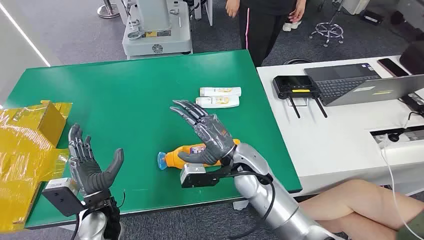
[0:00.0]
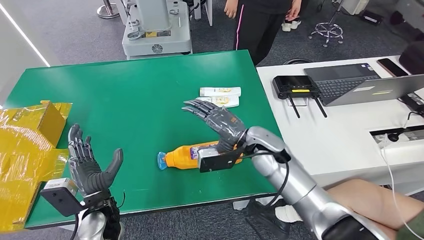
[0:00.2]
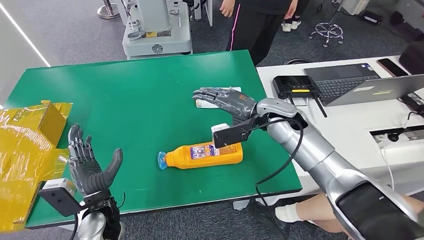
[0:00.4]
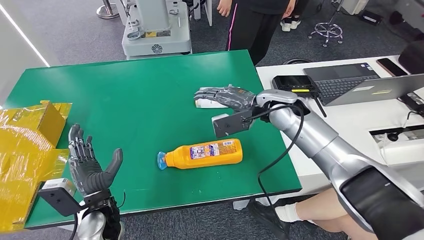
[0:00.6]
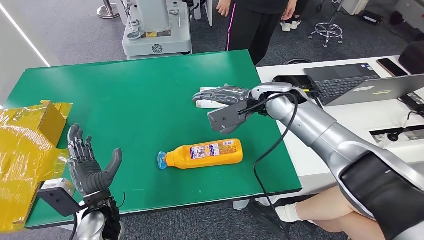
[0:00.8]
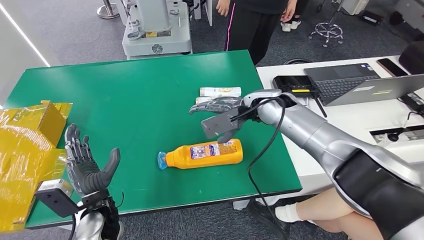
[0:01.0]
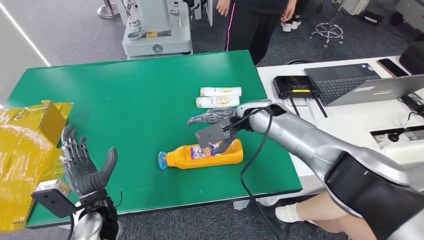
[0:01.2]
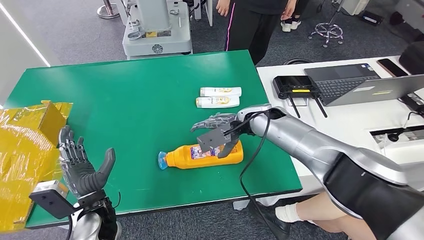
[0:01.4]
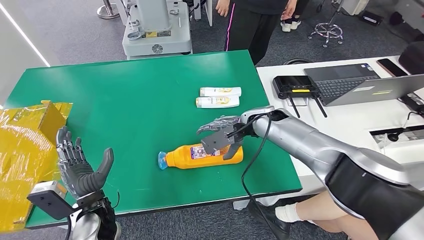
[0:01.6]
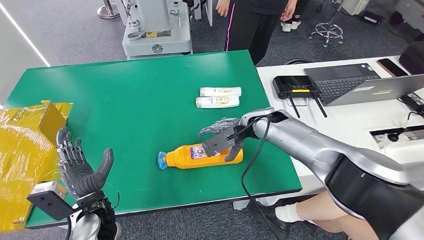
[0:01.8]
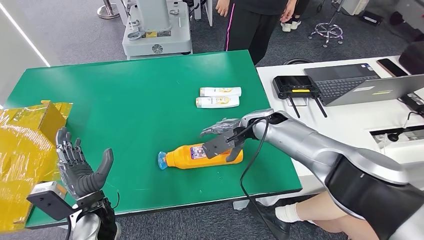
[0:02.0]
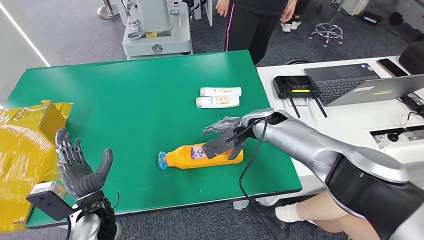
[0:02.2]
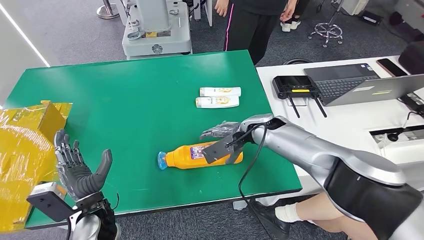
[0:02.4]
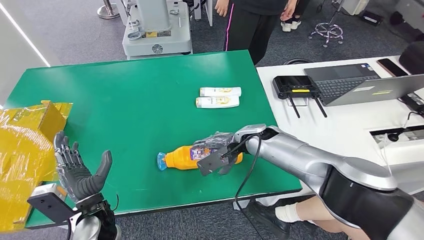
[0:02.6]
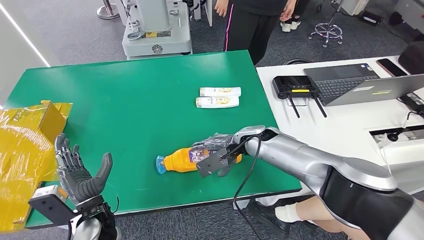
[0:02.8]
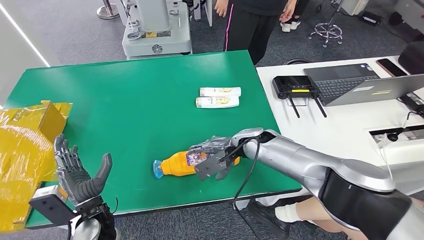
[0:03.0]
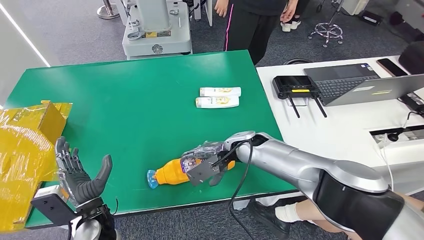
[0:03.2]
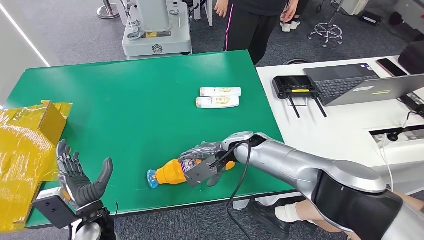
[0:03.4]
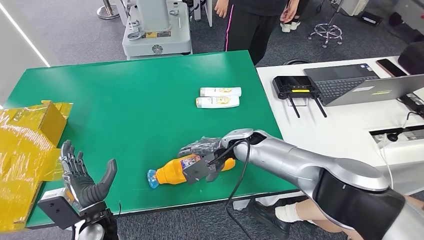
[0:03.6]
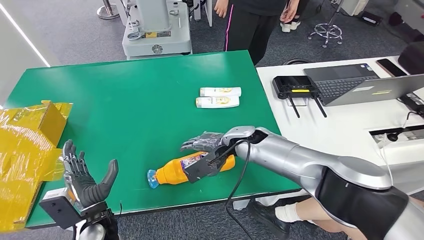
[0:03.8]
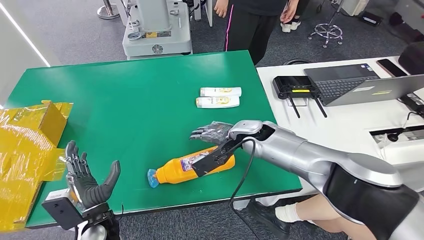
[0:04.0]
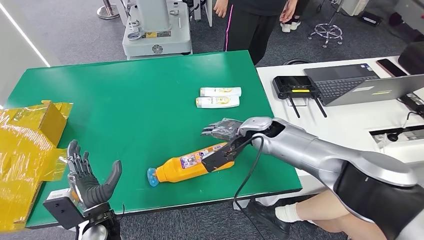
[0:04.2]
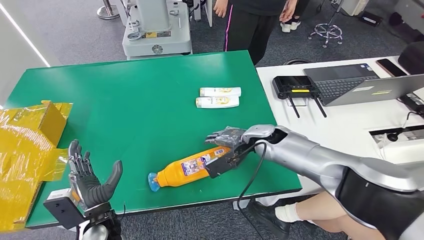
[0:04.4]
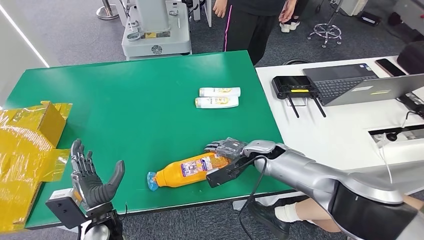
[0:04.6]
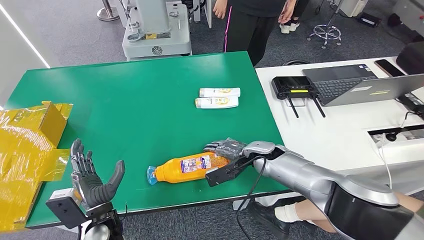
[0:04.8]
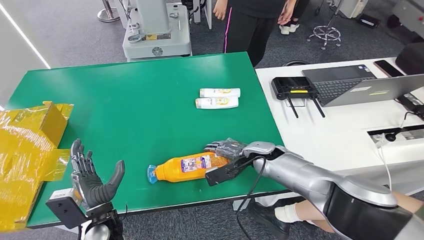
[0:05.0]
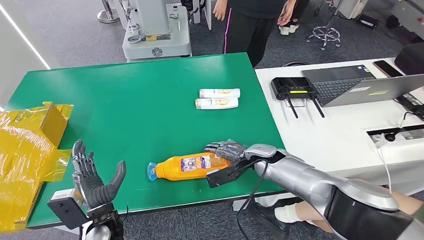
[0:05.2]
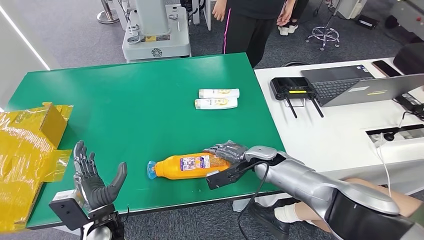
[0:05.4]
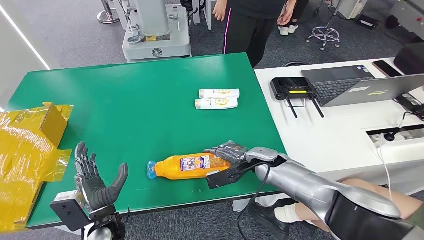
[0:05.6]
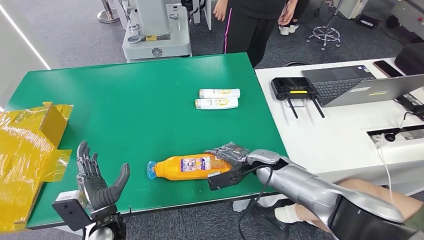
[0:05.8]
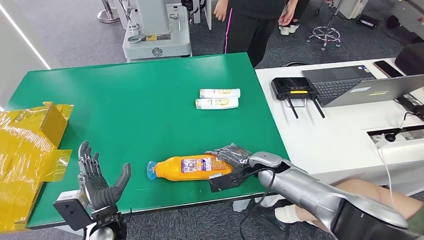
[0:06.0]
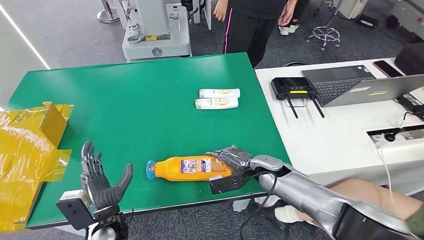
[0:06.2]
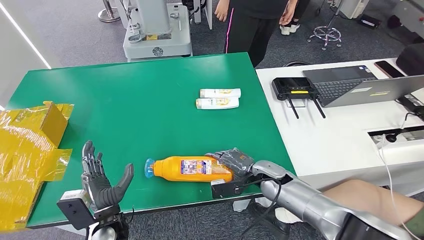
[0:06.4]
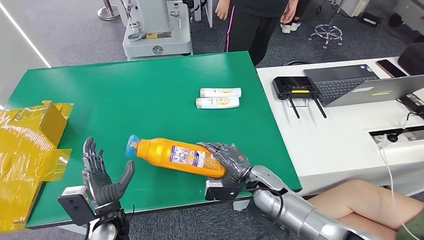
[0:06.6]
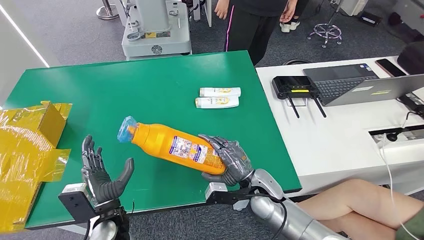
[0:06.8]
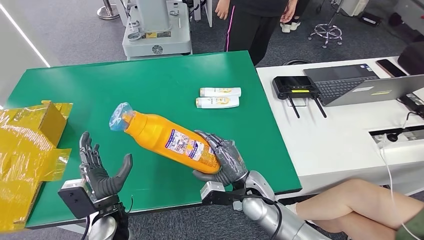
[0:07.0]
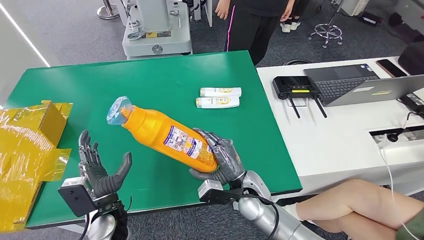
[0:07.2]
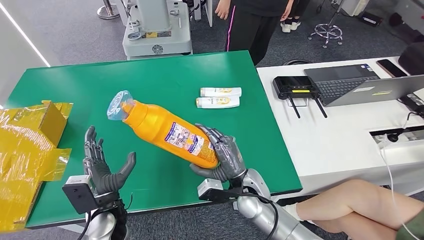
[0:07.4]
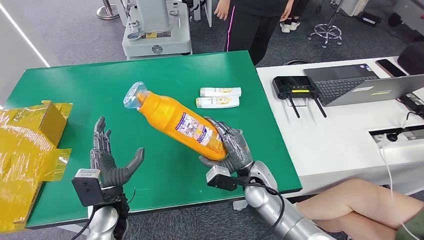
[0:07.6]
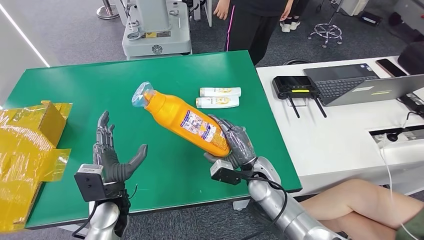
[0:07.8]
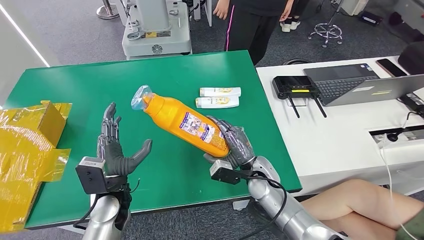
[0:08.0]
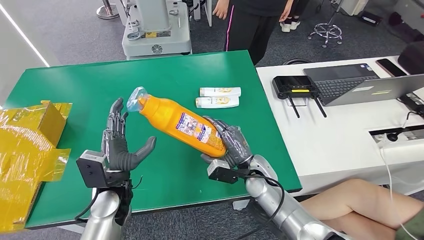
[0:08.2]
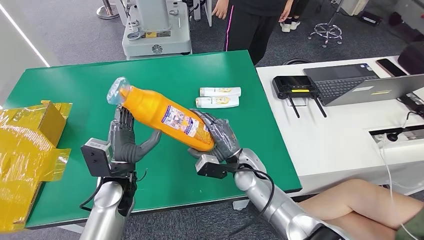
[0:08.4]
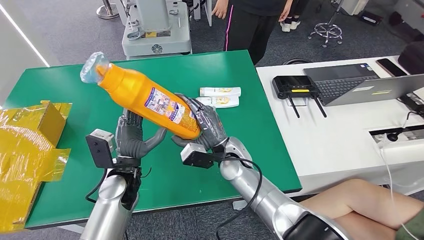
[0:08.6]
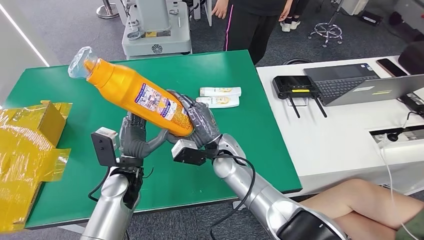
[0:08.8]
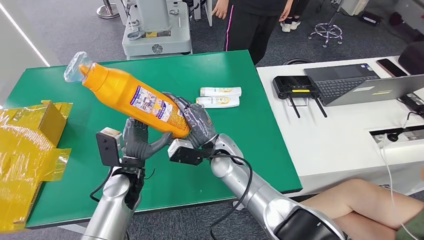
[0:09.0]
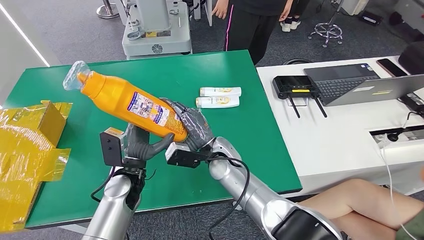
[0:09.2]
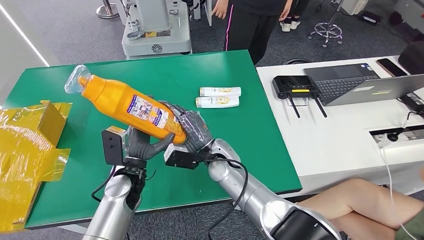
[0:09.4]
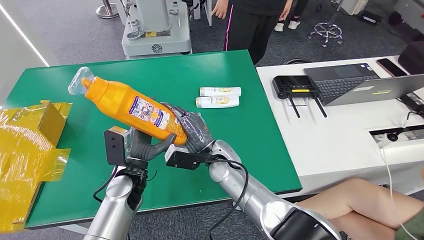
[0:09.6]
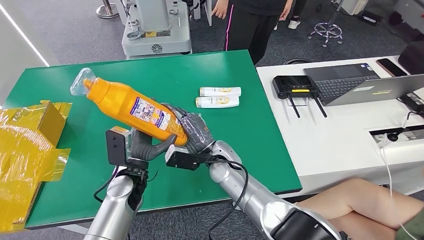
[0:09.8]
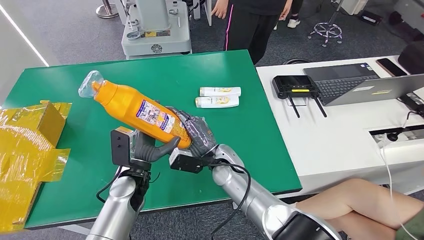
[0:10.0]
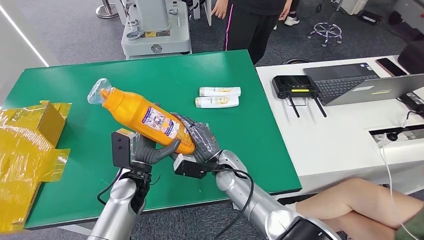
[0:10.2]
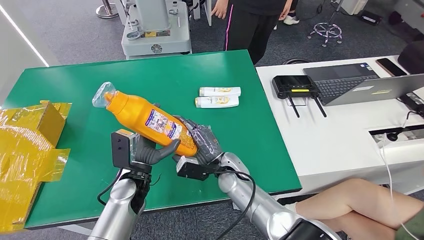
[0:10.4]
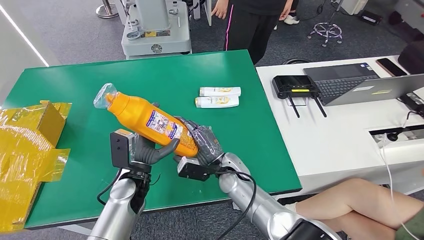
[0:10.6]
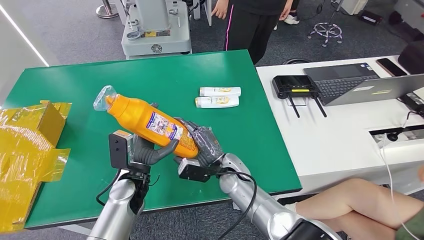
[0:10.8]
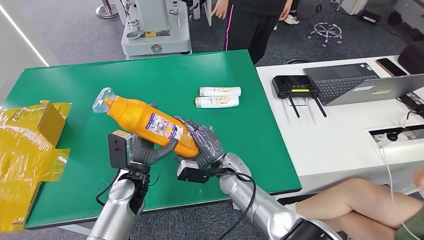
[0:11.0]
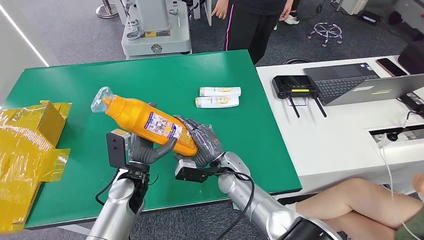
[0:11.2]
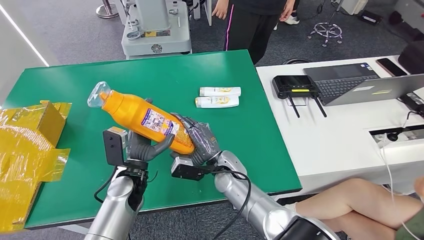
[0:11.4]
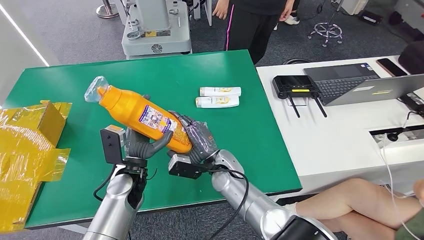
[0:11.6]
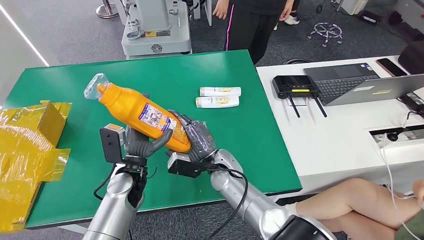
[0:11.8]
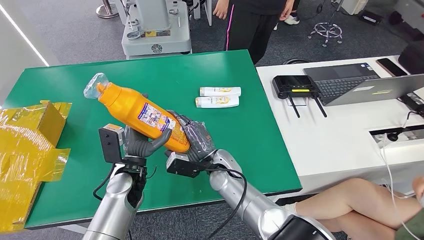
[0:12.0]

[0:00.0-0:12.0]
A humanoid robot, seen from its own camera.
Step, 0:00.0 to 0:07.6: Pick up the bottle from the table.
0:01.6 to 0:03.0: The right hand travels downward by about 5 cm.
0:07.6 to 0:09.0: The left hand shifts some 5 cm forward, while the right hand shifts approximately 10 cm to the left, forward and upward.
0:09.0 to 0:10.4: The right hand heads downward, covering roughly 5 cm.
0:10.4 to 0:12.0: The hands move only a little.

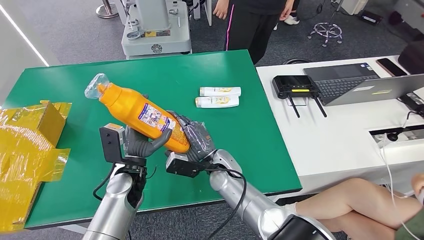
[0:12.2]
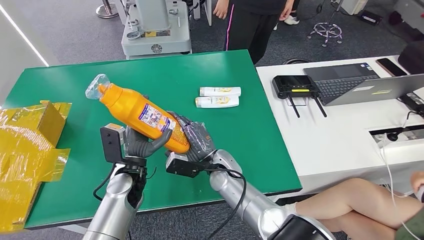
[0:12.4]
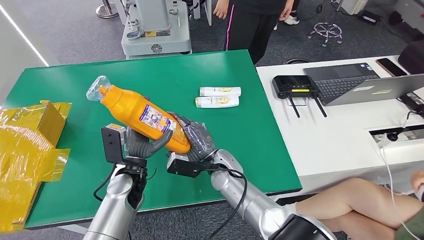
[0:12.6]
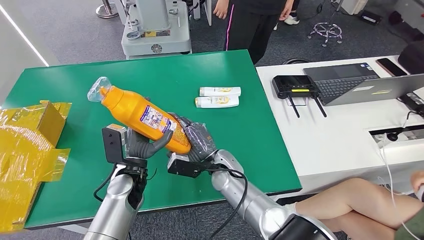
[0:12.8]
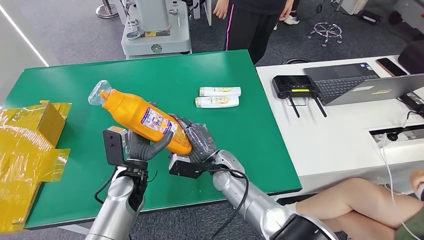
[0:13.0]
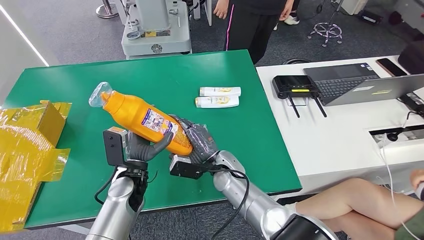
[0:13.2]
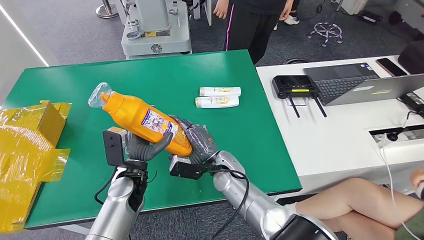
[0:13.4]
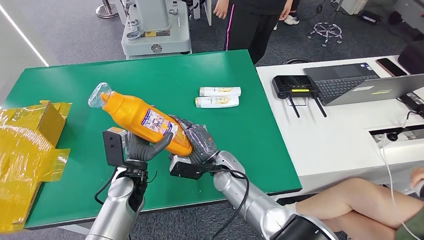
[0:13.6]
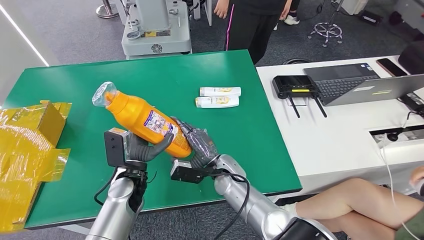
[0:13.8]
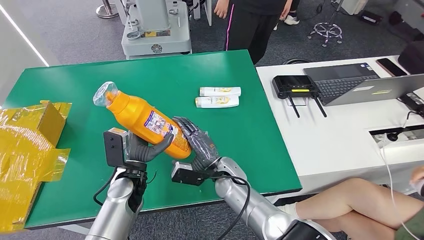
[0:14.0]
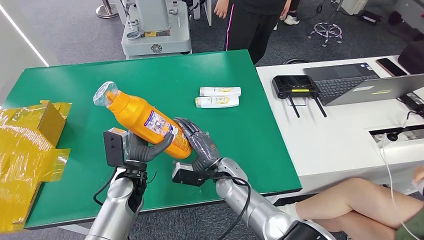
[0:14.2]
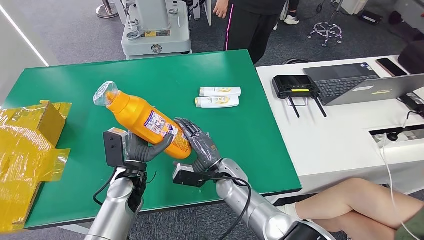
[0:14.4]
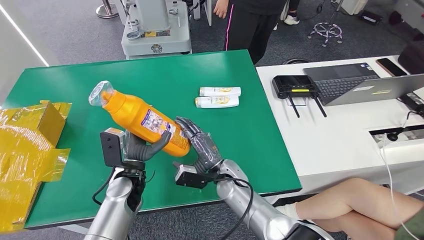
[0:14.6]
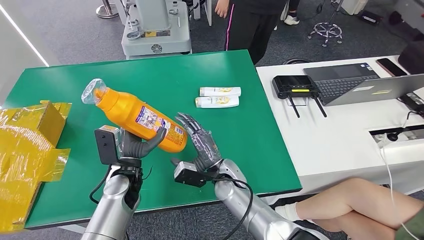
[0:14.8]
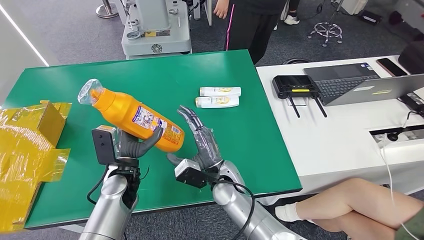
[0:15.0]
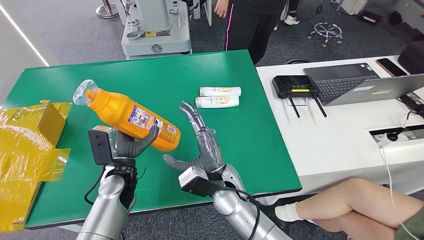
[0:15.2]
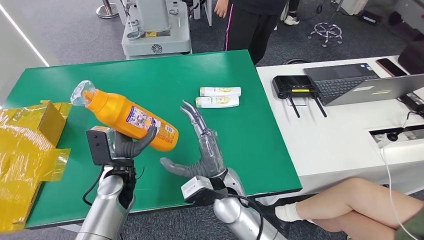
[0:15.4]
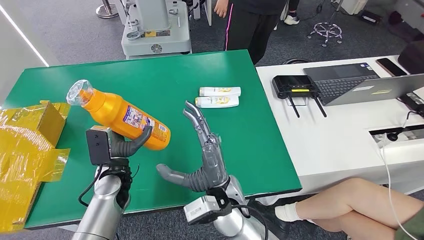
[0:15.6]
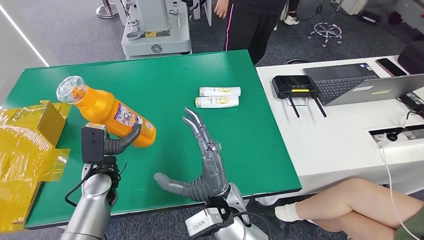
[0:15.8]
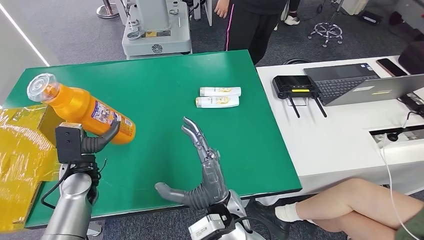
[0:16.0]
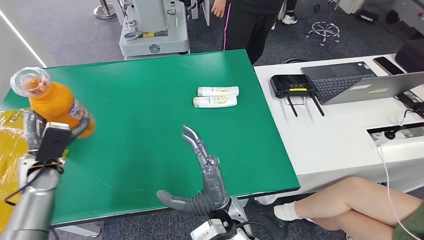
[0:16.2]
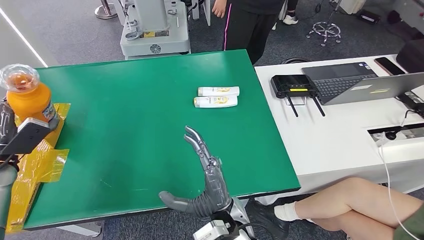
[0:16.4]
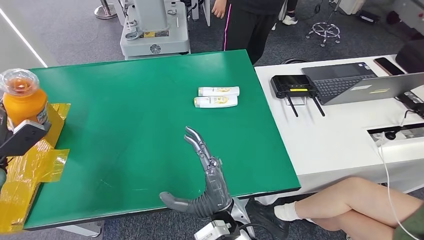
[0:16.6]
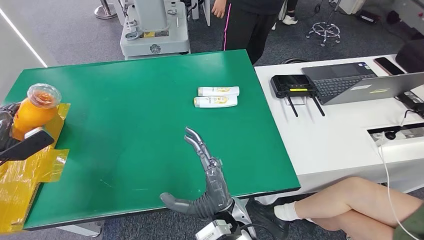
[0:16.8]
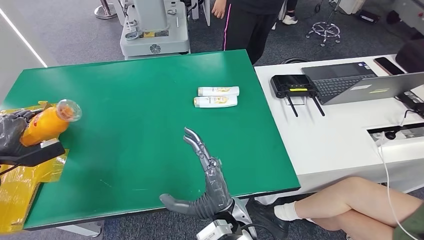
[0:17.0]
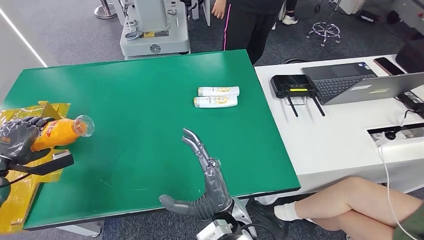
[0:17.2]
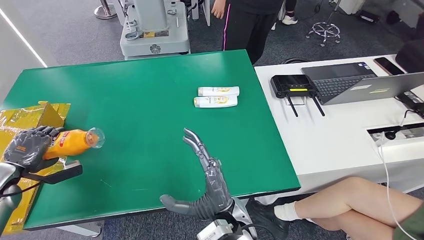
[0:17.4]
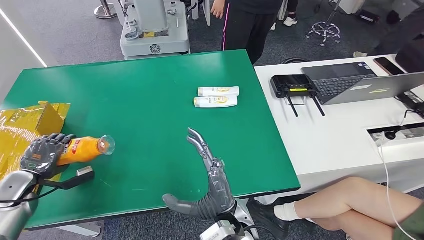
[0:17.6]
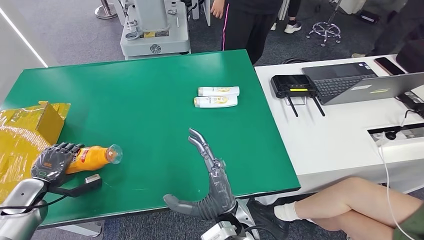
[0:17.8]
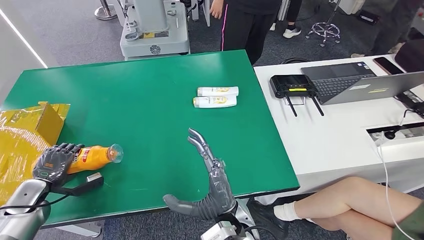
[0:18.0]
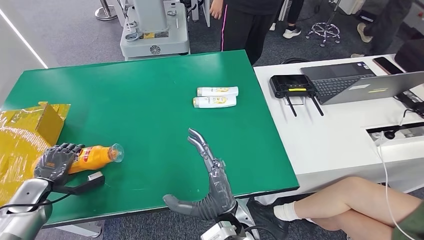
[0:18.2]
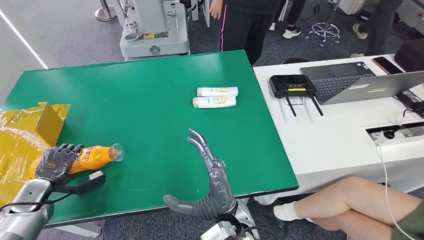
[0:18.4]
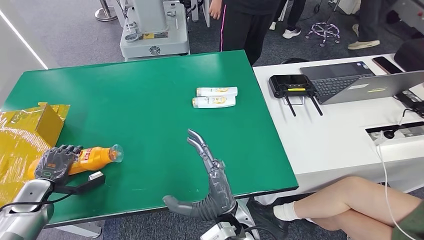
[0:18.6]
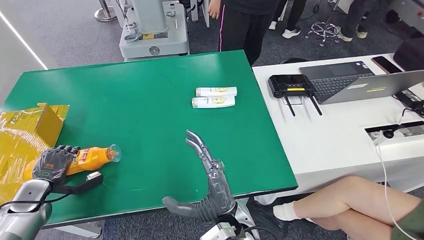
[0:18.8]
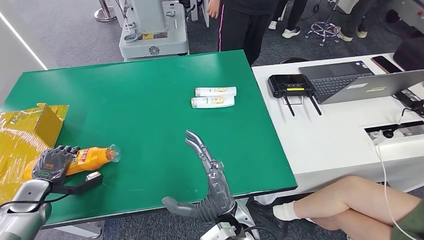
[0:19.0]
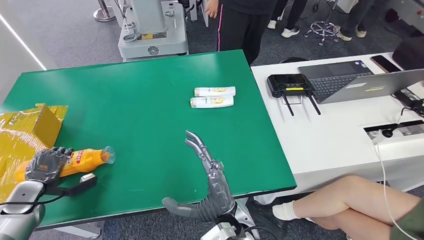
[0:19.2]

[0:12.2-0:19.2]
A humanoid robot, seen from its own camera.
0:12.2 to 0:15.0: The hands make only small movements.
0:16.4 to 0:17.8: The left hand goes roughly 10 cm downward.
0:17.8 to 0:19.2: The hands make only small movements.
